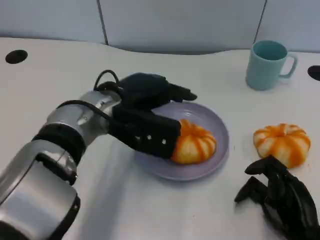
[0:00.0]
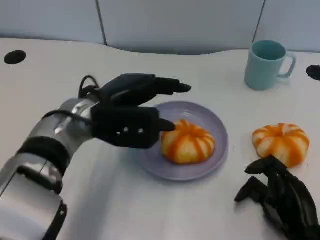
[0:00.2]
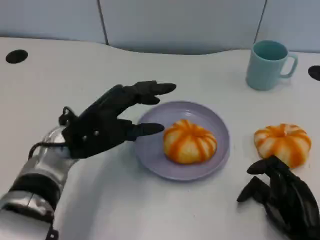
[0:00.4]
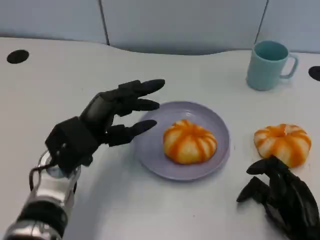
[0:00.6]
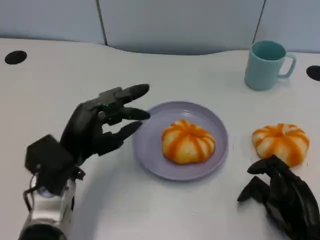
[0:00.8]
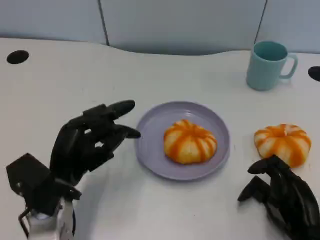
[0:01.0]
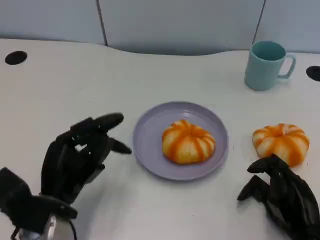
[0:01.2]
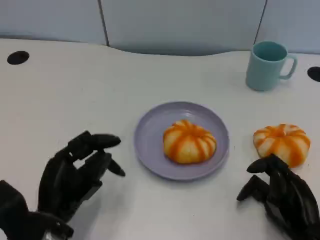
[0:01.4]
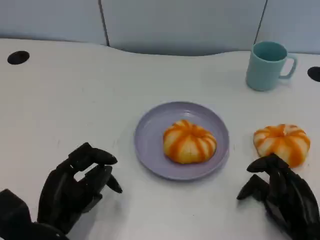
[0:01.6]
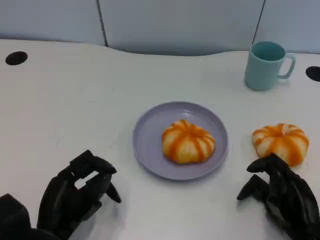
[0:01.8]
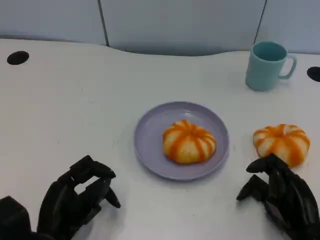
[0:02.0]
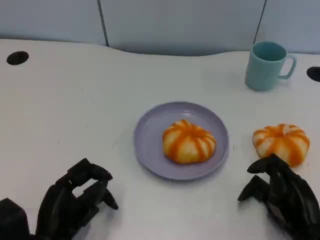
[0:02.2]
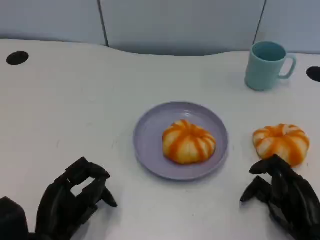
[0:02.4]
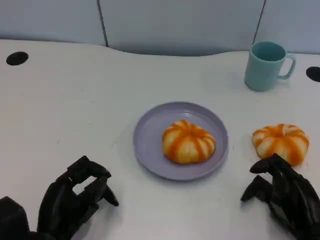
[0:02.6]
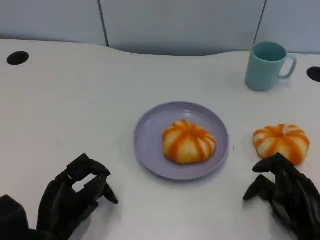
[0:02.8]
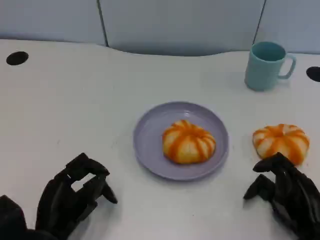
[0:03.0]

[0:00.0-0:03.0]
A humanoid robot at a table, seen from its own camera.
Task of the whole recording: Grasp the bread from the table and place it into the plate.
0:00.0 to 0:01.6: The left hand moves backward, downward and to the left, approximately 20 cm.
0:01.6 to 0:03.0: There are only small adjustments of the hands.

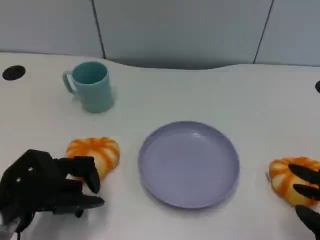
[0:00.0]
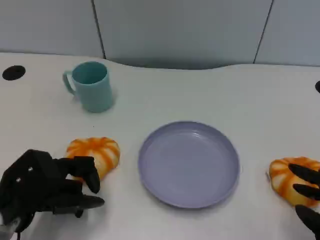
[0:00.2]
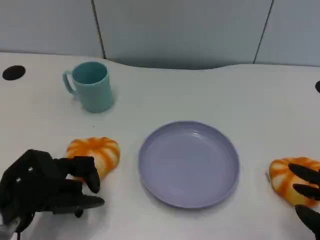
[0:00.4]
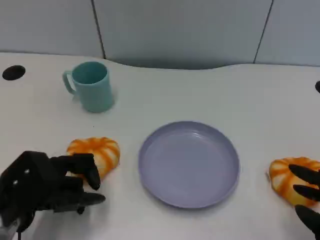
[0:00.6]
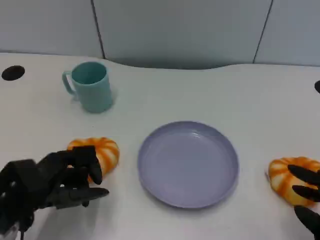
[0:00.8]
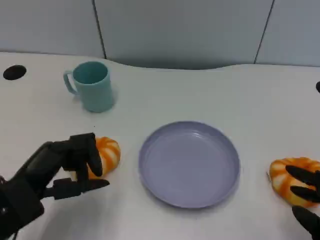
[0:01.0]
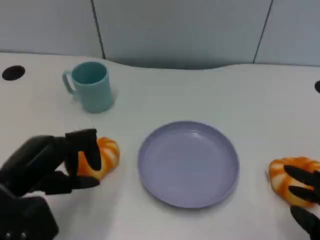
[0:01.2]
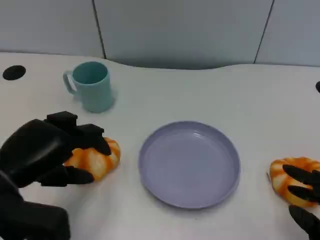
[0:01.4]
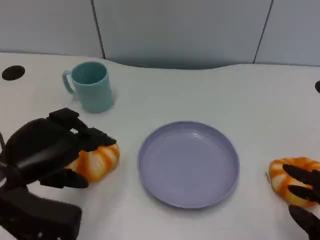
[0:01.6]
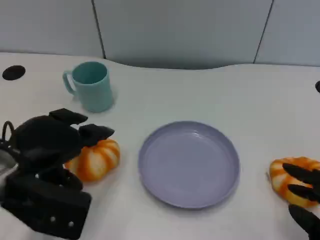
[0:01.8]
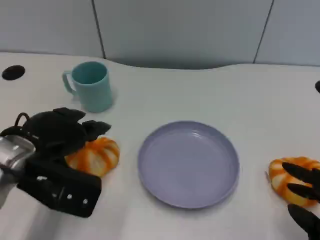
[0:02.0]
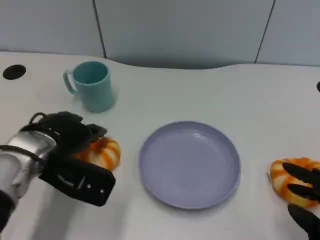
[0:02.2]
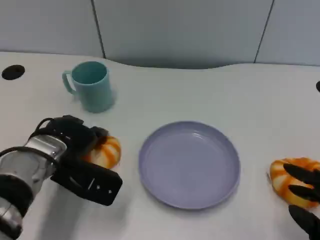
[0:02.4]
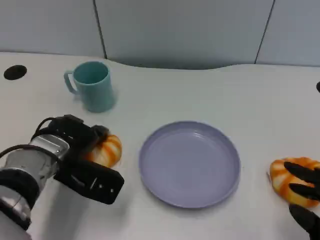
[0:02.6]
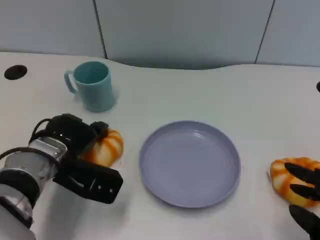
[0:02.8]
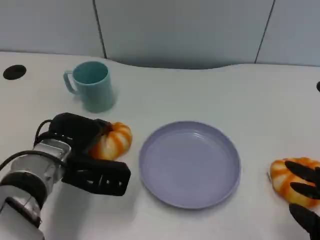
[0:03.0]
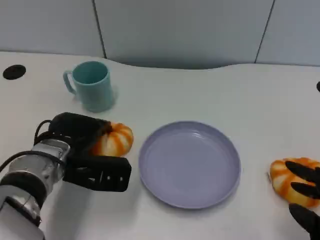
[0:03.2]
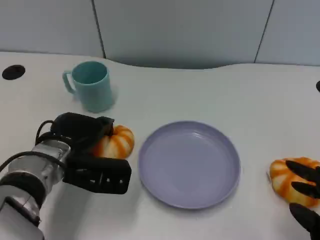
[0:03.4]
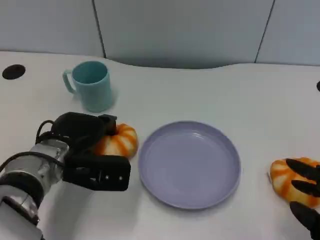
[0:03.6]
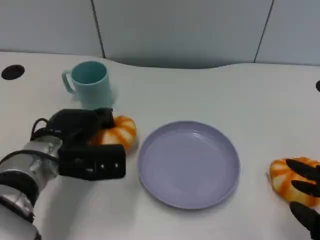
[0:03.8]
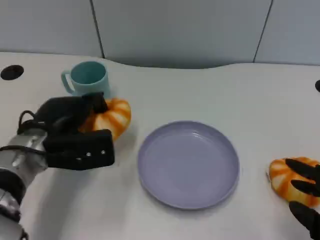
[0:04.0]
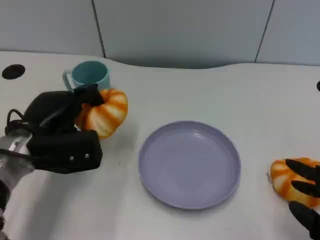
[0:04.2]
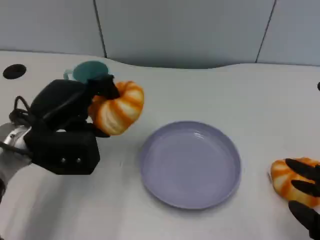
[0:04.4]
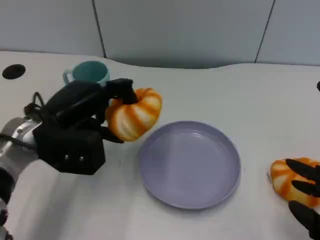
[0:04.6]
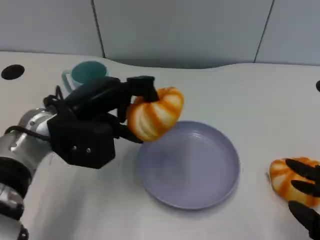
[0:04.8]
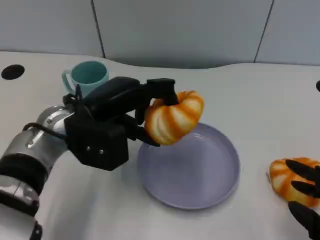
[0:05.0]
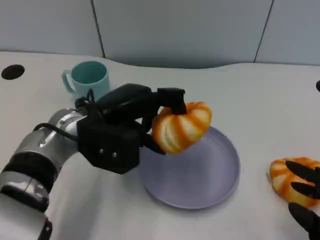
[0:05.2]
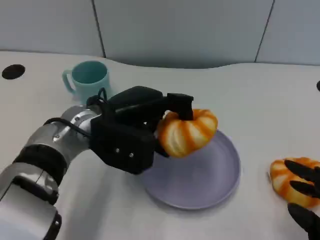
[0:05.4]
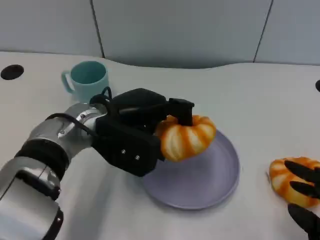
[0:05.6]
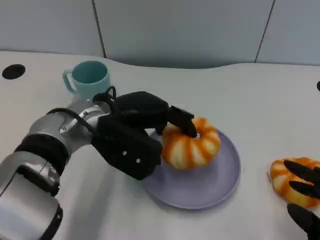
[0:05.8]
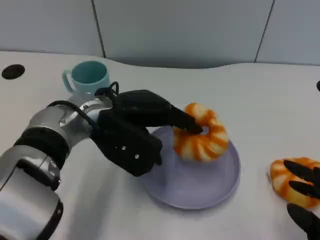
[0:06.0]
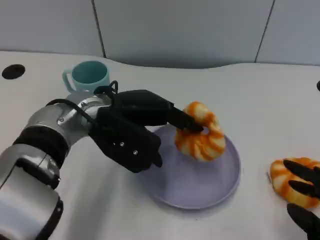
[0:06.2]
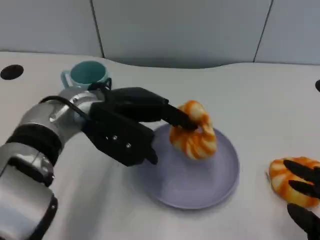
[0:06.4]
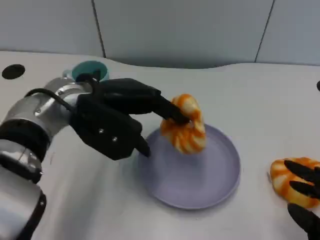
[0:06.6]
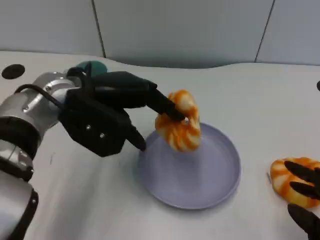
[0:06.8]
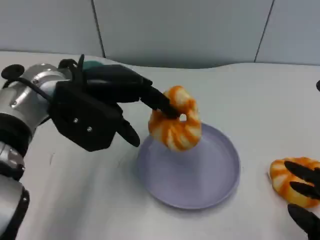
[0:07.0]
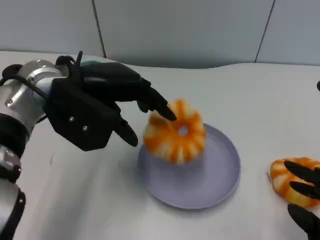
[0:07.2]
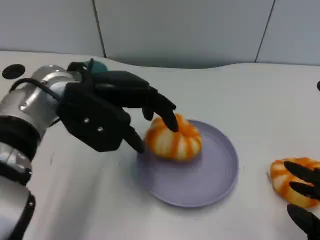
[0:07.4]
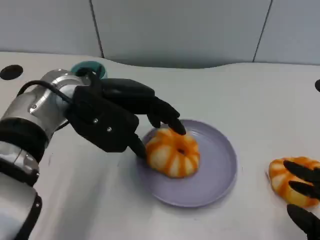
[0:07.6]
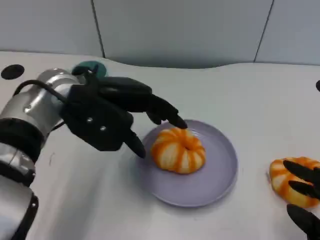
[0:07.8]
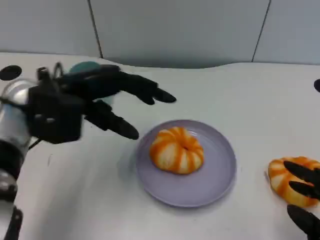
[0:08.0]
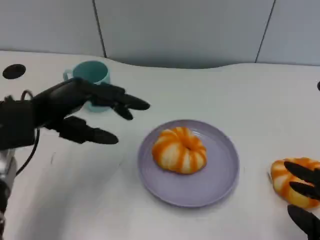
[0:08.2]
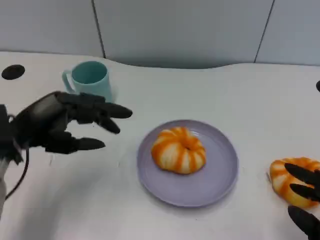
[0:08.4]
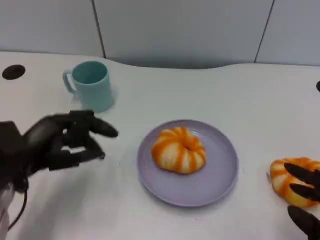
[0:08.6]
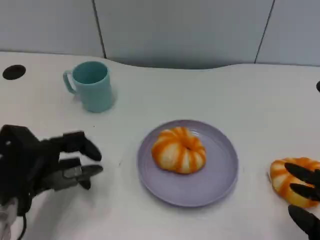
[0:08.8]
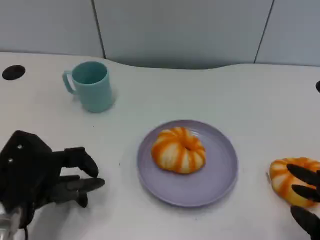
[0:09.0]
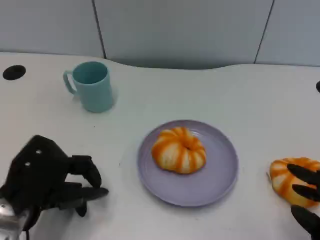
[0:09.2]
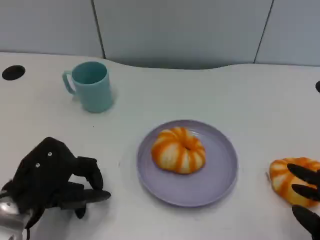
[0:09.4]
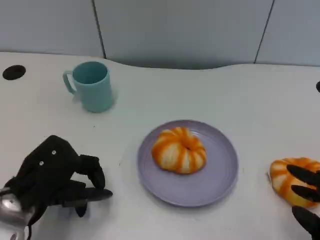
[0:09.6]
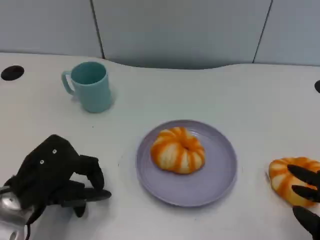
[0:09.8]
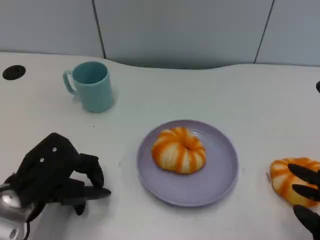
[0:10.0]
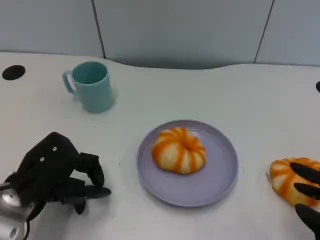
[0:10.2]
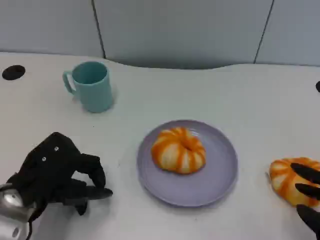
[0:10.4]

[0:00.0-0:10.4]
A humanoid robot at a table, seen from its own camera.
Task of the whole recording: Grasp the bread from the table and place it into the plate.
0:00.0 to 0:01.4: The left hand moves upward, approximately 5 cm.
0:01.4 to 0:03.0: The left hand is displaced forward, to the right and downward by roughly 15 cm.
0:03.0 to 0:04.4: The left hand is displaced upward by roughly 5 cm.
0:04.4 to 0:06.0: The left hand travels to the right by approximately 10 cm.
0:07.4 to 0:09.0: The left hand goes roughly 20 cm downward, backward and to the left.
0:09.0 to 0:10.4: The hands make only small movements.

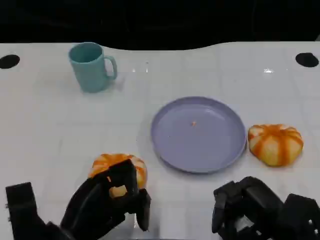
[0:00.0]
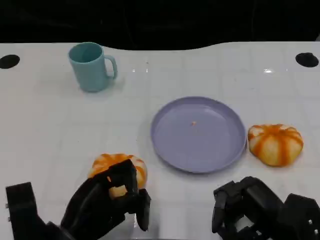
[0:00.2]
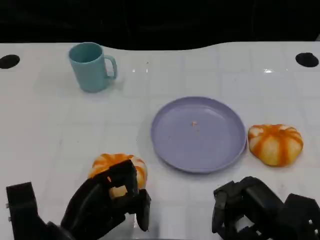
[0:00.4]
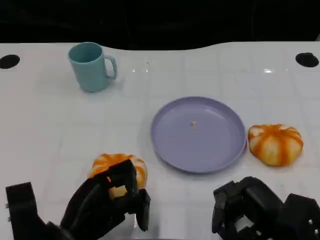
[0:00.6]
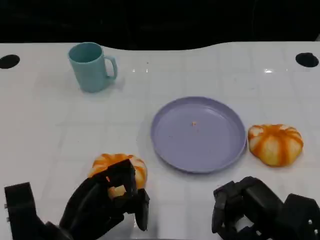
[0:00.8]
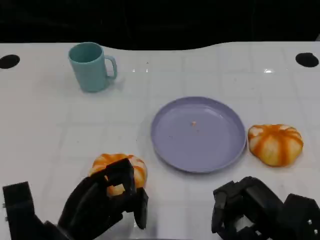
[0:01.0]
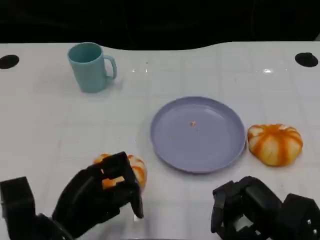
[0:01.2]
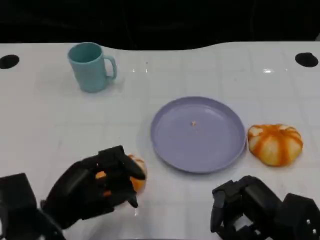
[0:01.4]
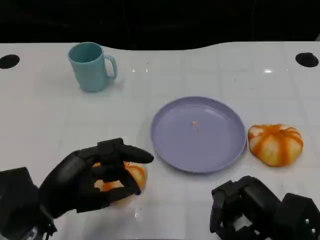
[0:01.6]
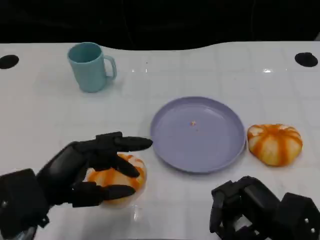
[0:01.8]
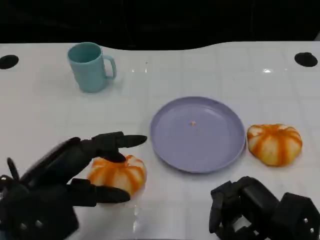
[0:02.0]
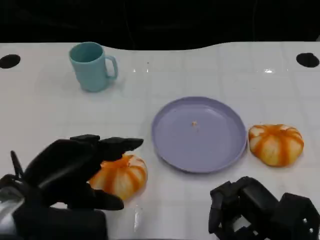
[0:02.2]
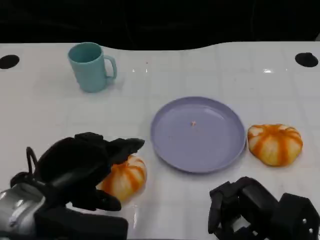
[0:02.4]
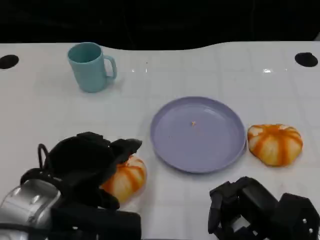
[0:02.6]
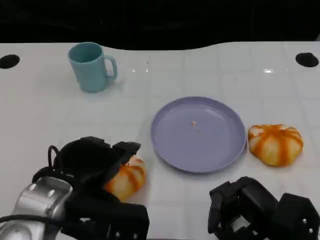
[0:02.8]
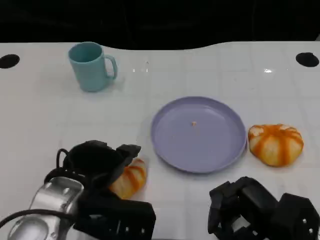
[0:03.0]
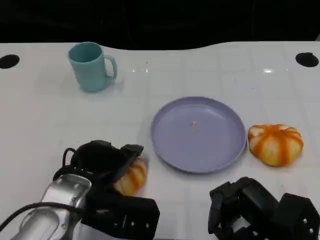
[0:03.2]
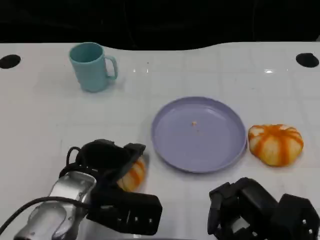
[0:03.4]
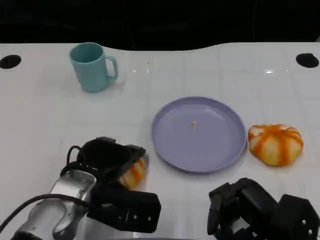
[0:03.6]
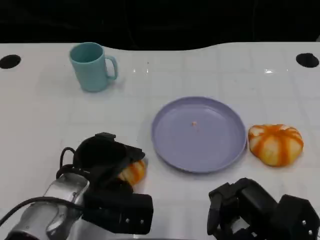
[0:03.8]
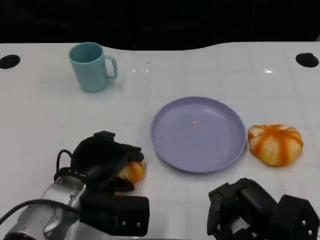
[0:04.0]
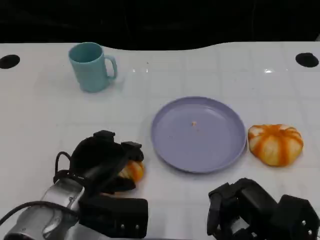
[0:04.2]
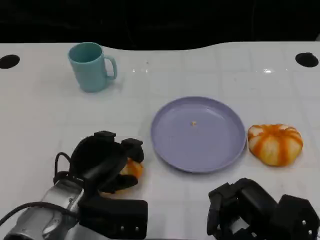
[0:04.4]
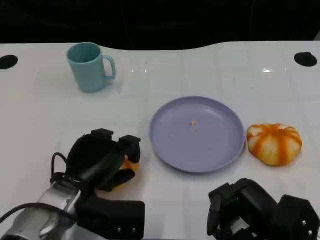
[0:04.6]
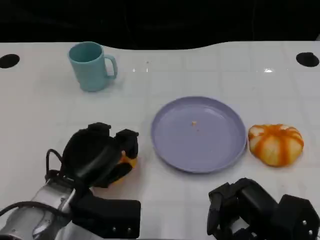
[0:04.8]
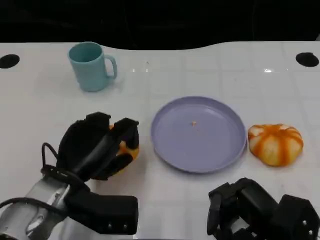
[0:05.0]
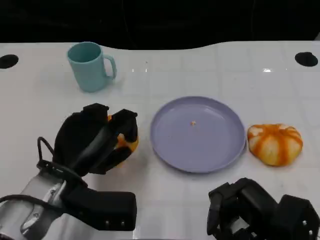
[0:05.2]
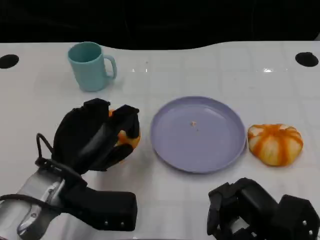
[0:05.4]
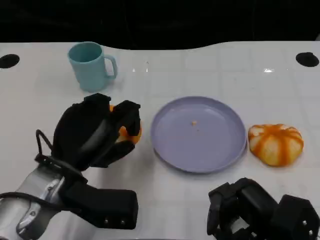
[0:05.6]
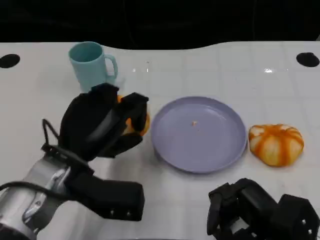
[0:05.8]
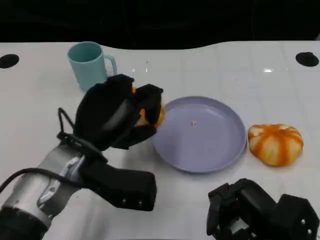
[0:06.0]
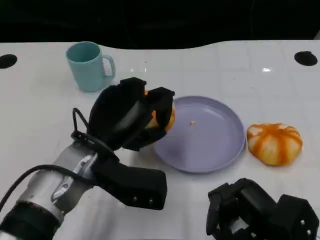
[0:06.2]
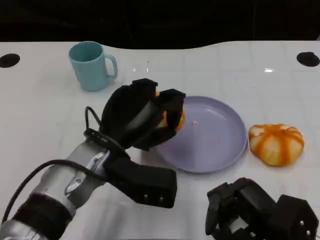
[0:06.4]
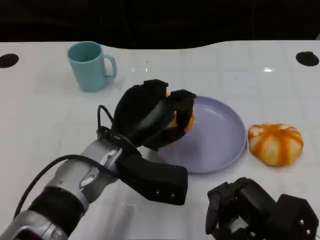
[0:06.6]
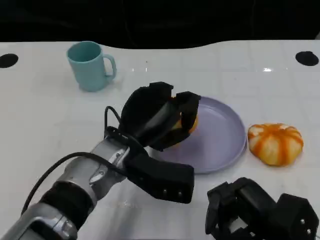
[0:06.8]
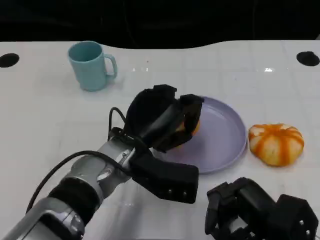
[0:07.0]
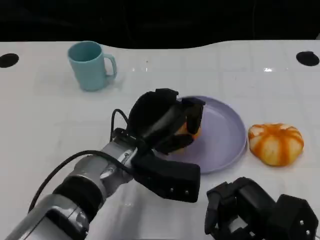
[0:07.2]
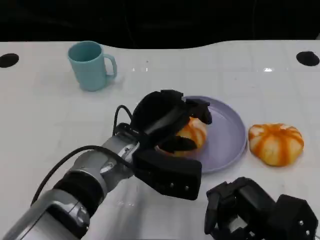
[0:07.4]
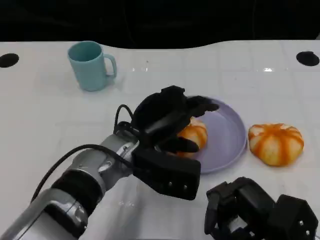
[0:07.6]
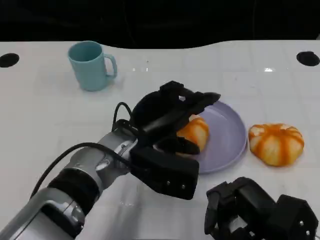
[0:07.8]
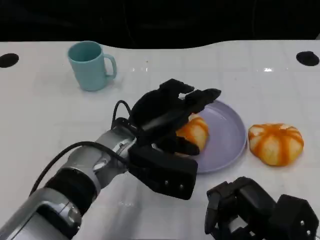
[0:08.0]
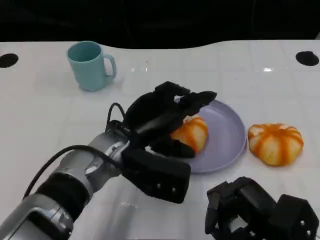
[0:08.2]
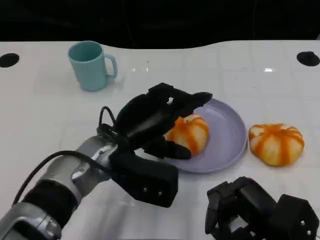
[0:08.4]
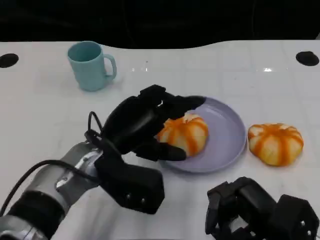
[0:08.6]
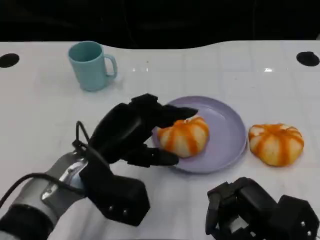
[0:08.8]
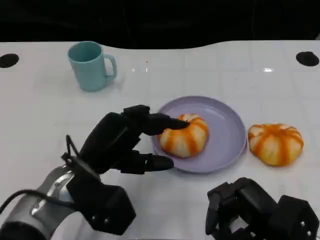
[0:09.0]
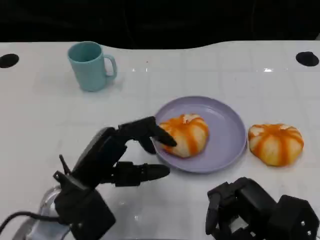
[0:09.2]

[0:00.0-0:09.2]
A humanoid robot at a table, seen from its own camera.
Task of the whole recording: Grasp the bread from the table and place it into the plate.
0:00.0 to 0:01.6: The left hand travels upward by some 5 cm.
0:01.6 to 0:03.0: The left hand goes roughly 5 cm to the right.
0:03.0 to 0:04.6: The left hand shifts by roughly 5 cm.
0:04.6 to 0:06.2: The left hand moves upward, roughly 5 cm.
0:06.2 to 0:07.6: The left hand moves to the right, roughly 5 cm.
0:07.6 to 0:09.2: The left hand heads to the left and backward, covering approximately 10 cm.
